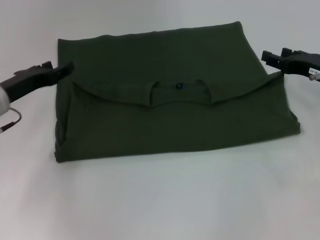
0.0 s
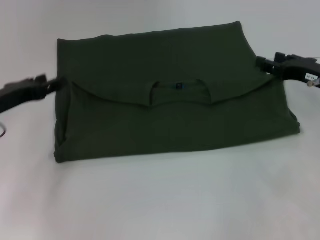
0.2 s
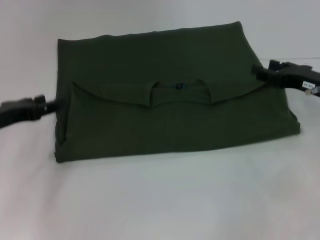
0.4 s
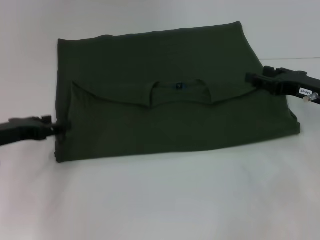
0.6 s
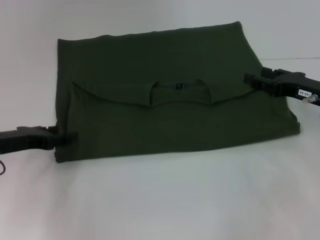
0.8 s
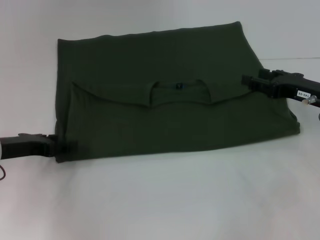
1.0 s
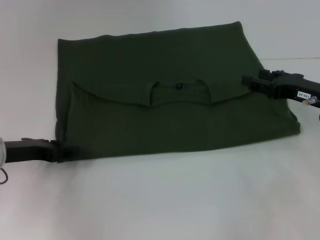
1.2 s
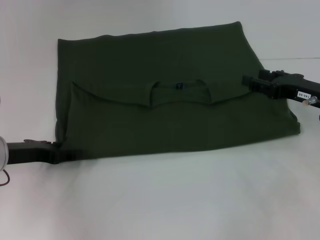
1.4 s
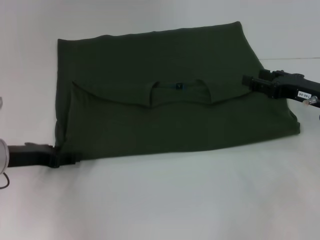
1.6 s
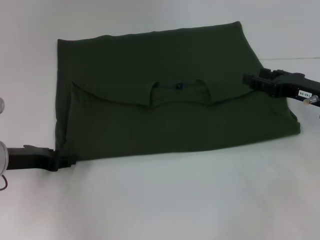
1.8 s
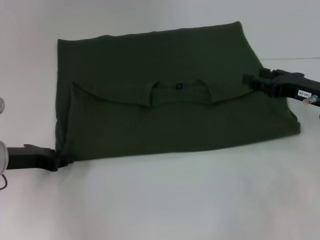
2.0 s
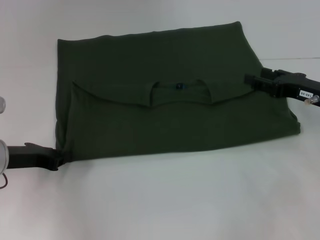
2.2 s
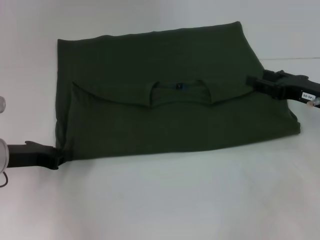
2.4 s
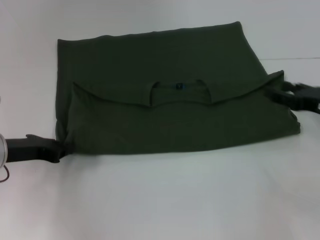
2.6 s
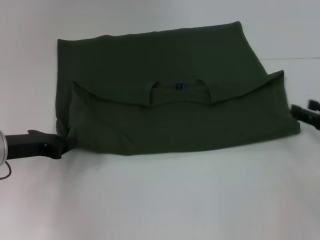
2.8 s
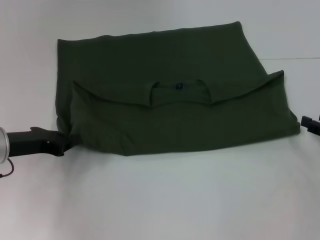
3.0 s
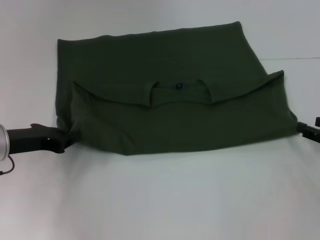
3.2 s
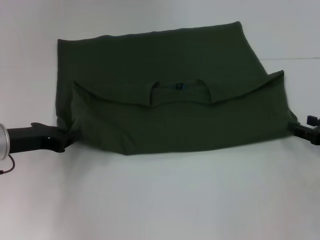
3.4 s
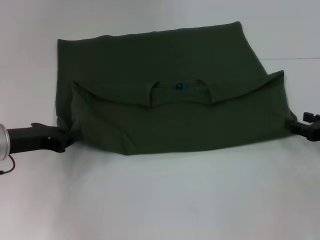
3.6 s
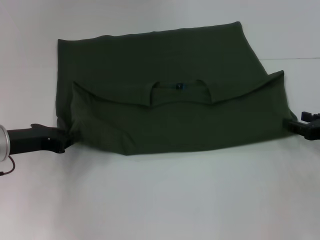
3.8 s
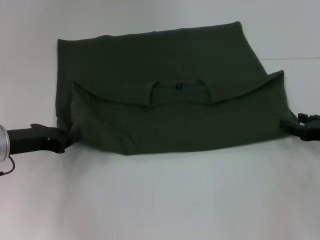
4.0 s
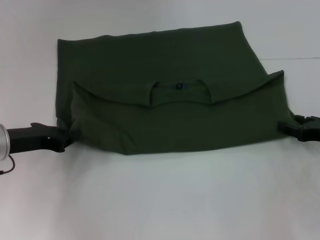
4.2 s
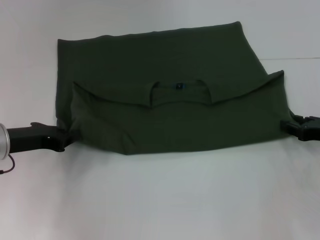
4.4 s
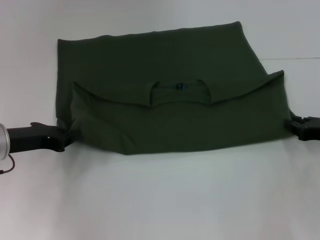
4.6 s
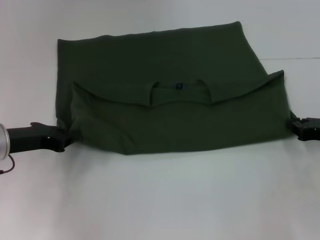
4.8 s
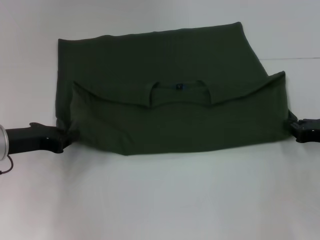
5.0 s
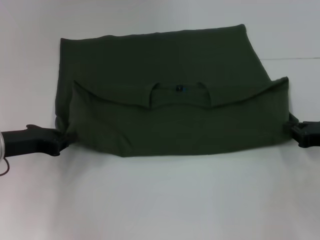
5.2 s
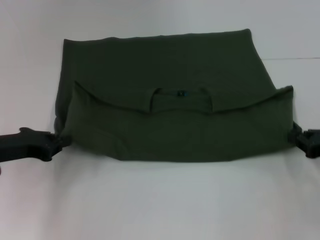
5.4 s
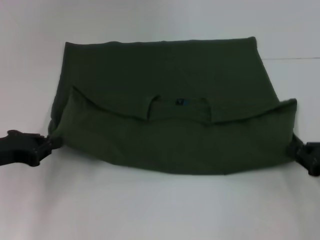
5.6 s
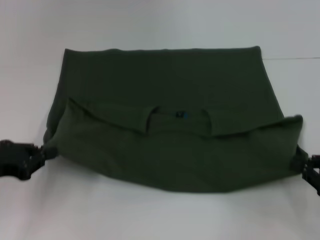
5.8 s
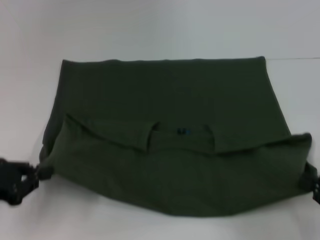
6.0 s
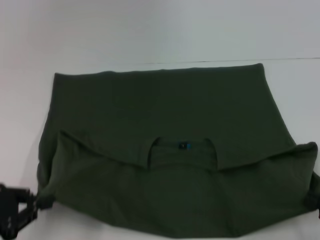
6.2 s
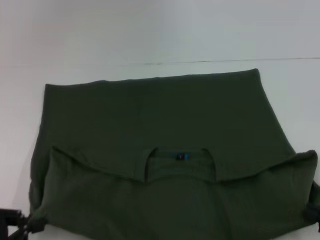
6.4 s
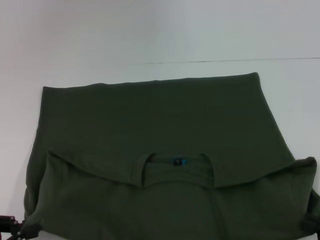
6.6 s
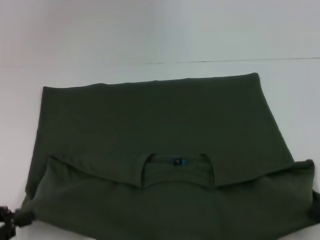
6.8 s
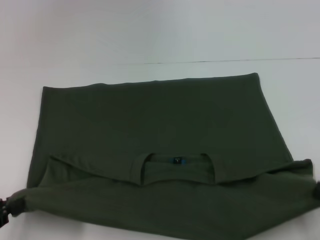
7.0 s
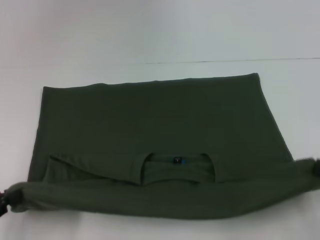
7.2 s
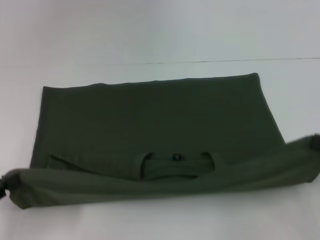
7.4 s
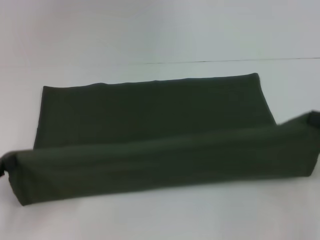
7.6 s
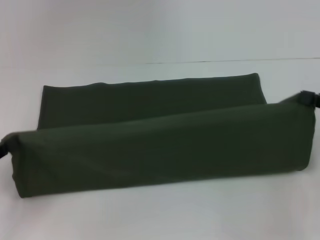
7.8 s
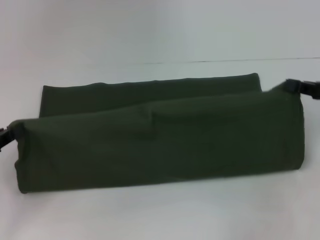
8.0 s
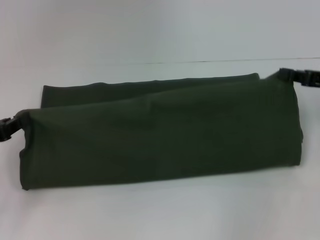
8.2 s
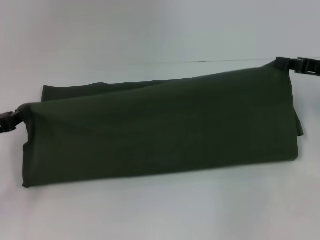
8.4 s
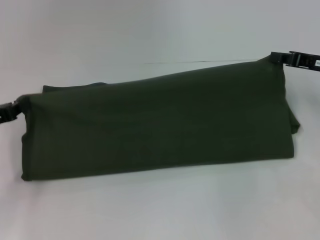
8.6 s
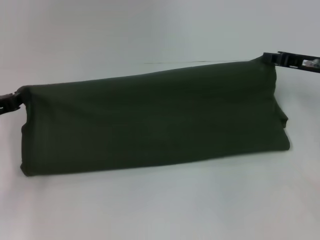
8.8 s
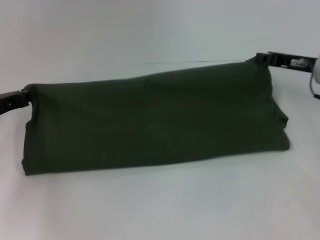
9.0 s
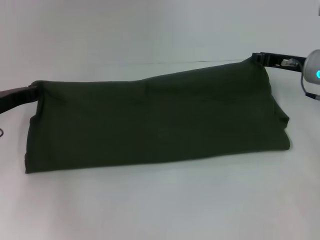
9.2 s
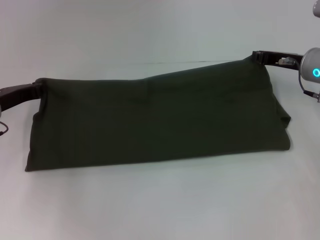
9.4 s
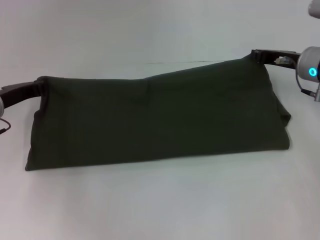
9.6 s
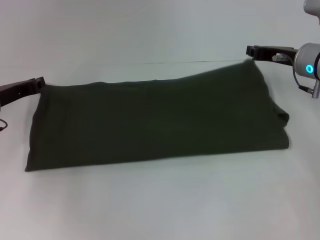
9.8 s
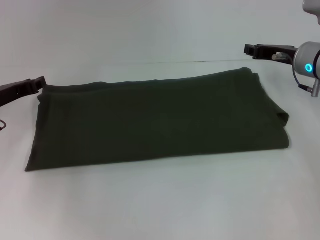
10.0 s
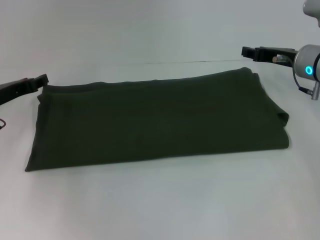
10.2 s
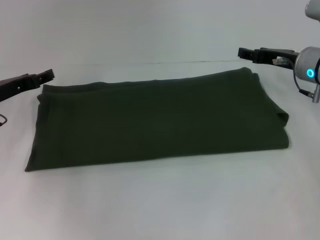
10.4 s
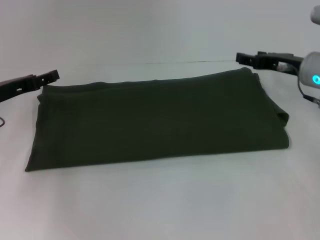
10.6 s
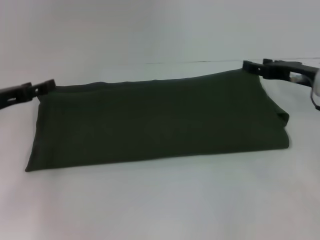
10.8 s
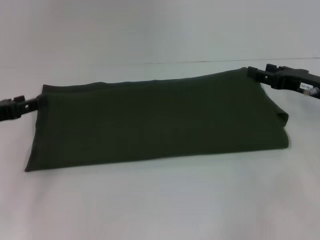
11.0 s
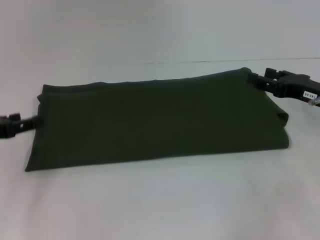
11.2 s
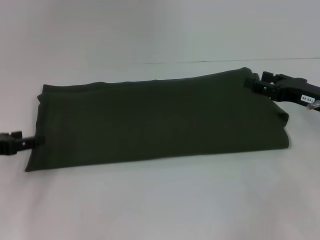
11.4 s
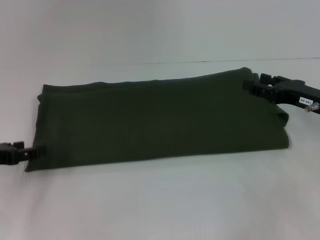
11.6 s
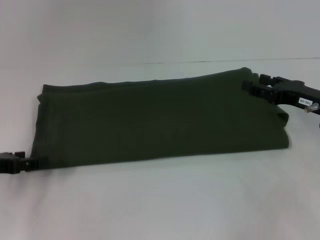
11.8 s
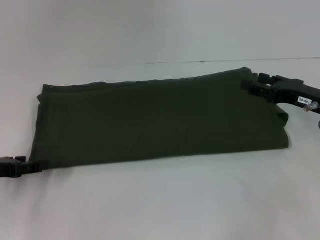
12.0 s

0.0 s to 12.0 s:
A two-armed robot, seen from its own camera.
Step, 0.0 to 6.6 s: Pull the clothes with your left hand.
Step, 0.0 to 6.6 s: Pull the clothes with your right hand.
Step, 6.8 to 10.0 s: Fold the clothes with your left hand.
Step, 6.8 to 10.0 s: Fold the clothes with your right hand.
0.0 to 1.6 s: The left gripper moves approximately 5 cm.
1.6 to 3.0 s: The left gripper closes. The right gripper goes some 10 cm to the right and backward.
3.0 to 4.4 s: The right gripper changes place by approximately 5 cm.
4.4 to 6.0 s: The left gripper heads backward and to the left, covering about 10 cm. The right gripper heads backward, covering some 15 cm, and closes its fingers.
6.0 to 7.6 s: The left gripper moves some 10 cm backward and comes back; the right gripper goes some 10 cm upward and forward.
7.6 to 9.0 s: The left gripper is displaced forward by approximately 15 cm; the right gripper heads forward and to the left, covering roughly 20 cm.
9.0 to 10.4 s: The left gripper opens its fingers, while the right gripper opens its fingers.
10.4 to 12.0 s: Both grippers travel together backward, about 10 cm.

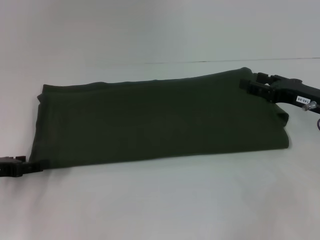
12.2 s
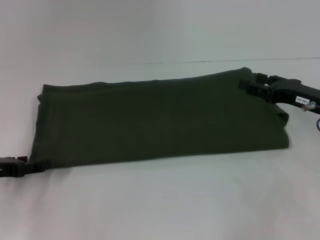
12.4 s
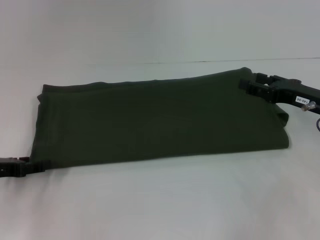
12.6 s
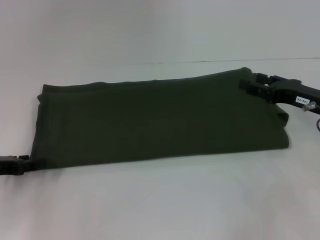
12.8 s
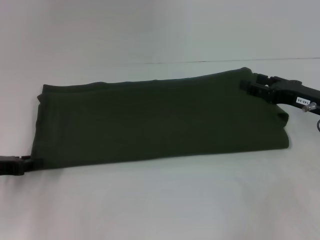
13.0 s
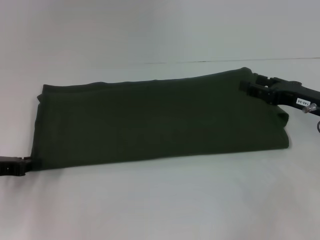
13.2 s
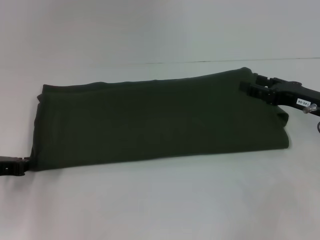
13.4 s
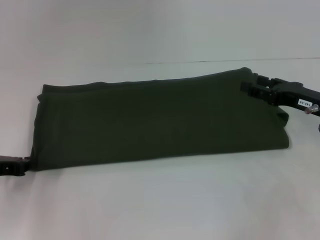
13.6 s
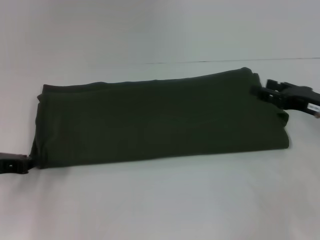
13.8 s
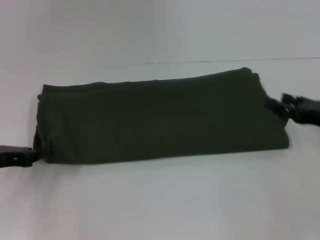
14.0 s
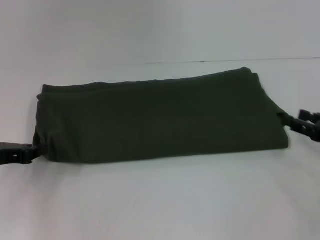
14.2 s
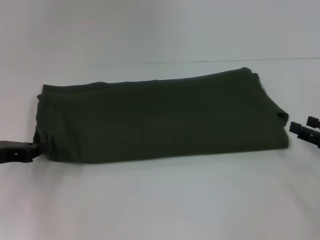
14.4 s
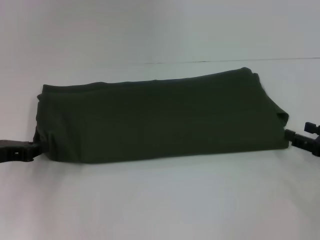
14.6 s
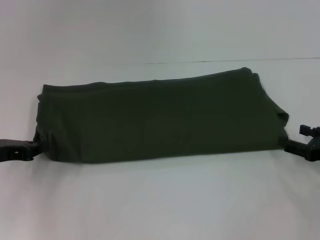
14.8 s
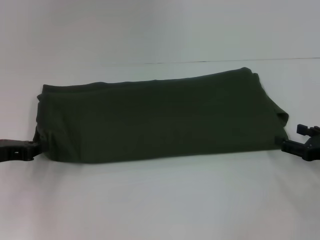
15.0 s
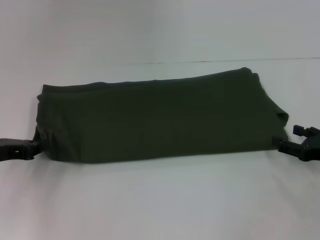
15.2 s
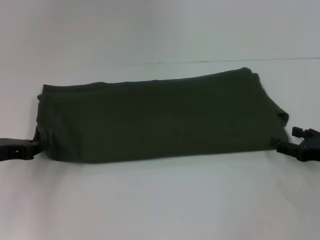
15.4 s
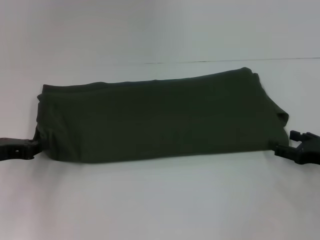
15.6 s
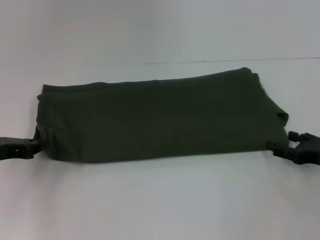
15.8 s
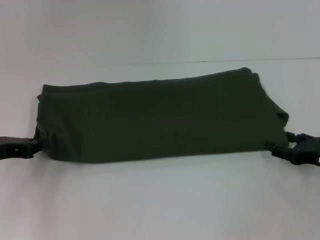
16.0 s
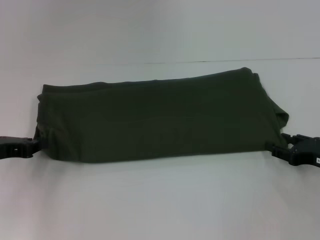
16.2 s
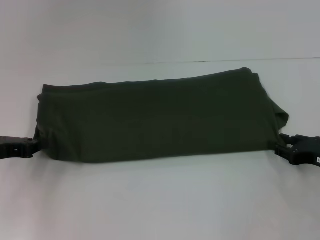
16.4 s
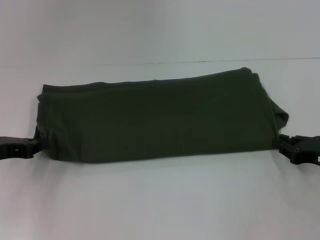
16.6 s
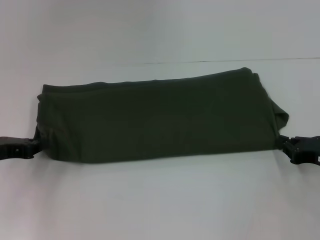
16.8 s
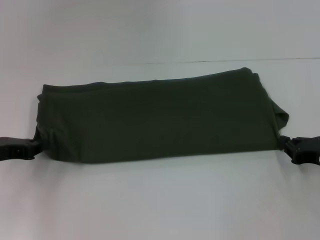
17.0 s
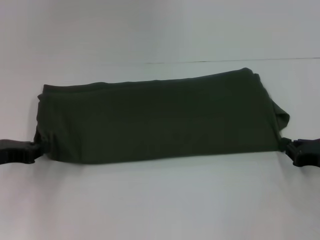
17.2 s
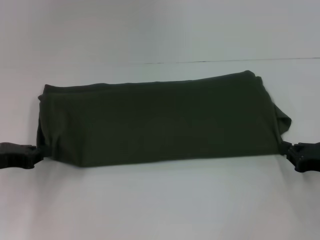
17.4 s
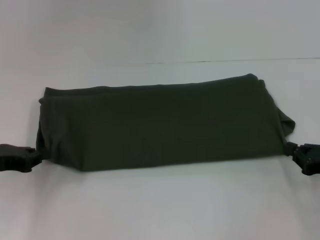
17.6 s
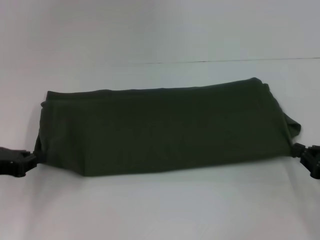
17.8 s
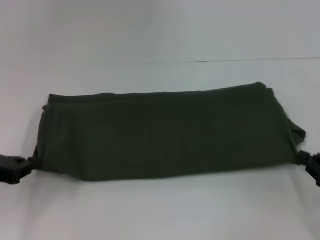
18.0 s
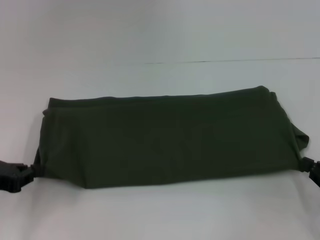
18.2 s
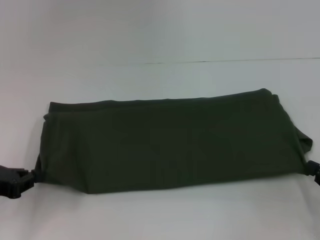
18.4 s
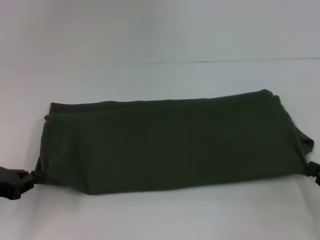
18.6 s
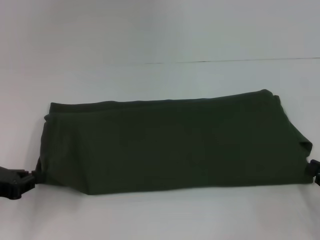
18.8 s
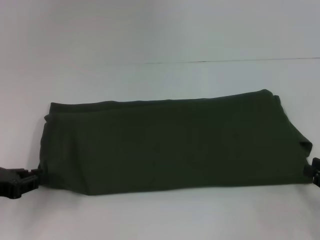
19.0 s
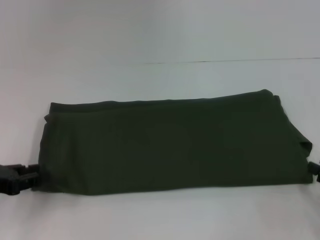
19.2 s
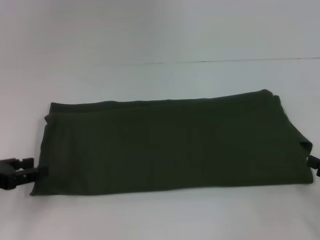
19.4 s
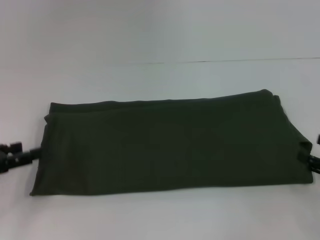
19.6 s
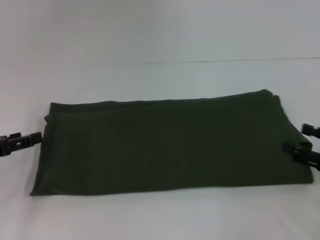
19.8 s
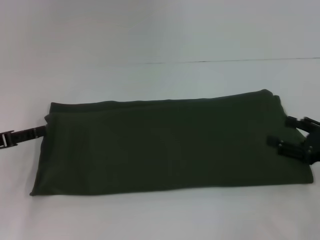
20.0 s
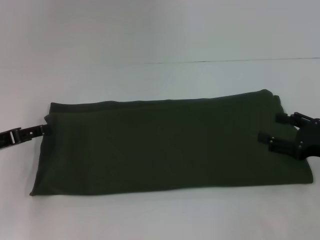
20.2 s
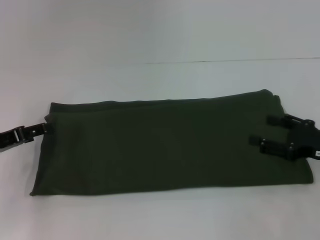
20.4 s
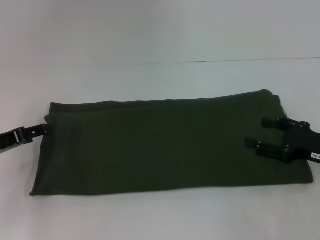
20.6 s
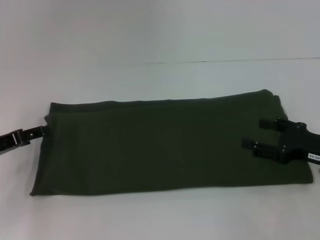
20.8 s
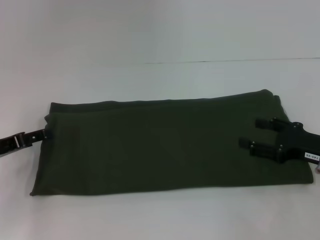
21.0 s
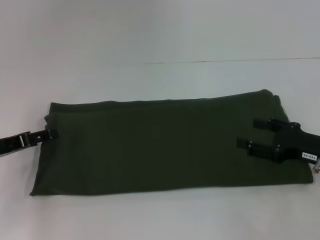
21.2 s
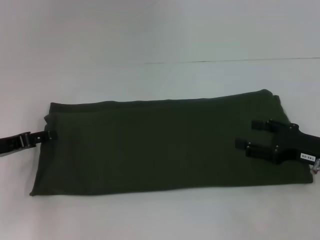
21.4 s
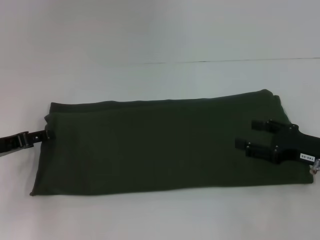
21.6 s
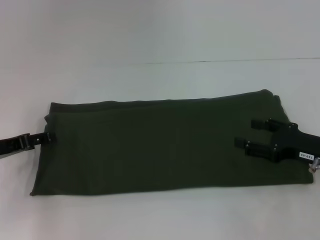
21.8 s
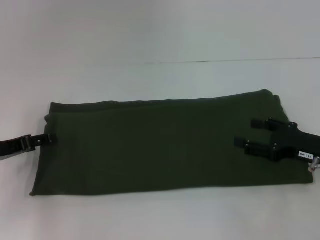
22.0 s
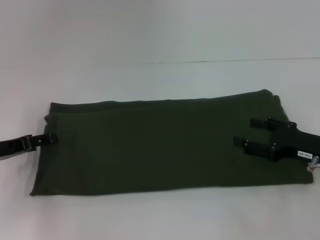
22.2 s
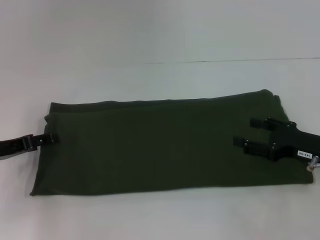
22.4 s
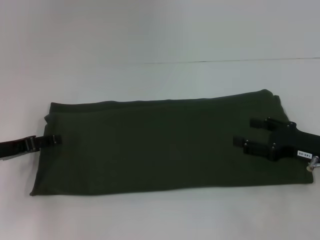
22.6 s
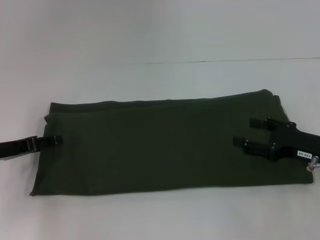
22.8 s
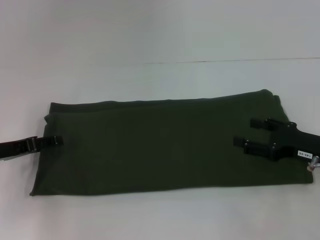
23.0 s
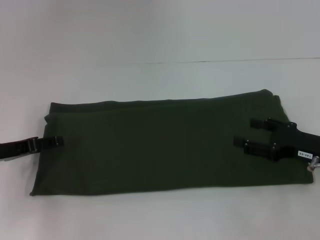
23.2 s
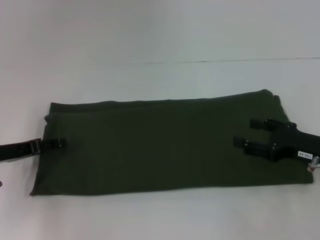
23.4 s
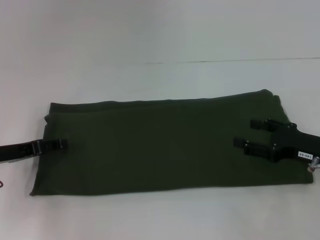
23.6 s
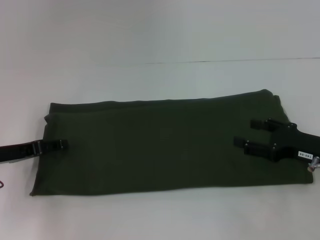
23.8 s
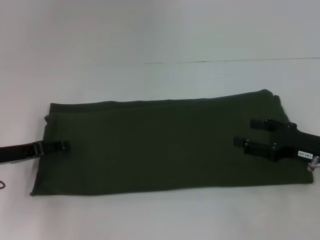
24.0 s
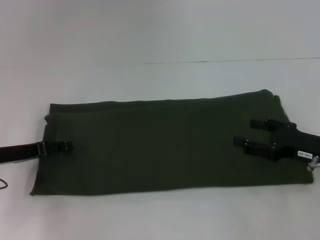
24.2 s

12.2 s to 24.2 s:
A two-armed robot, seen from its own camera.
Step, 12.2 to 19.2 s: Pull the clothes with your left hand.
Step, 12.2 to 19.2 s: Pull the clothes with your right hand.
12.2 to 13.8 s: The left gripper closes up.
13.8 to 15.2 s: The right gripper shifts roughly 5 cm backward and downward.
15.2 to 16.6 s: The right gripper closes.
16.6 to 18.2 s: The right gripper shifts approximately 5 cm backward, and closes.
18.2 to 19.8 s: The right gripper opens up, while the left gripper opens its fingers.
19.8 to 21.2 s: The right gripper shifts roughly 5 cm to the left.
21.2 to 22.6 s: The two grippers keep their place.
22.6 to 24.2 s: There are only small adjustments of the grippers.
